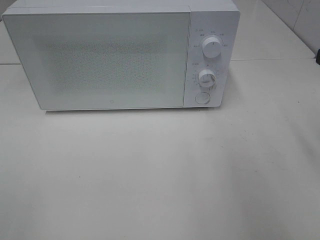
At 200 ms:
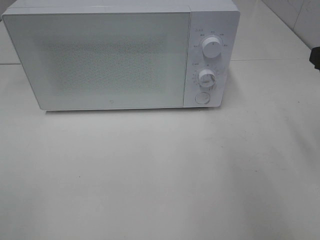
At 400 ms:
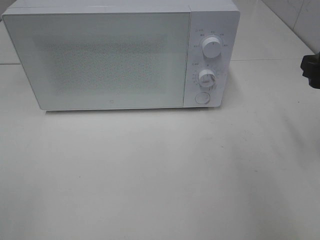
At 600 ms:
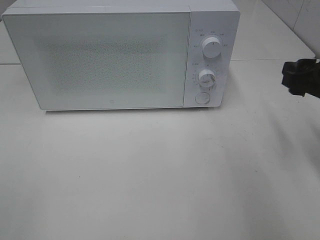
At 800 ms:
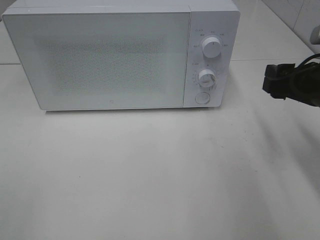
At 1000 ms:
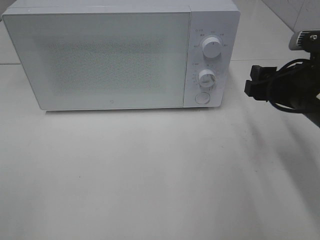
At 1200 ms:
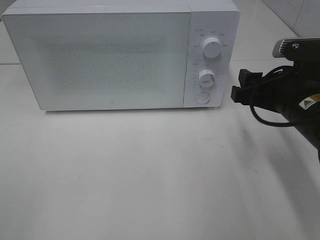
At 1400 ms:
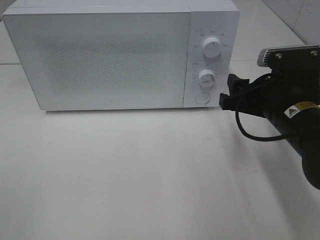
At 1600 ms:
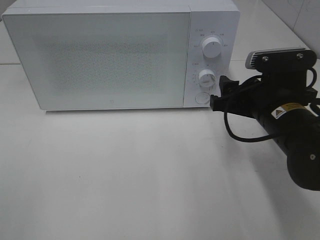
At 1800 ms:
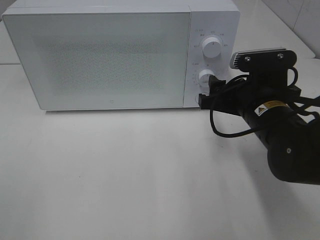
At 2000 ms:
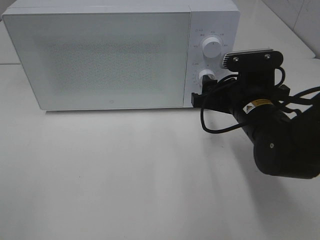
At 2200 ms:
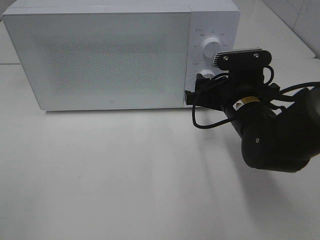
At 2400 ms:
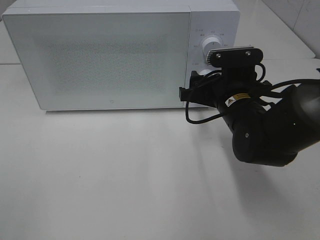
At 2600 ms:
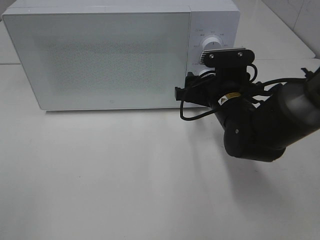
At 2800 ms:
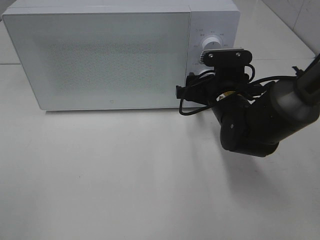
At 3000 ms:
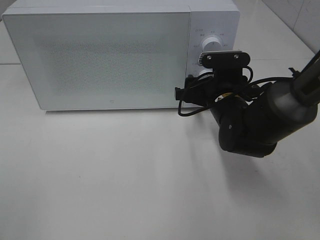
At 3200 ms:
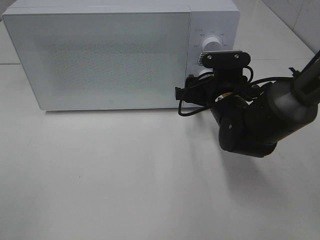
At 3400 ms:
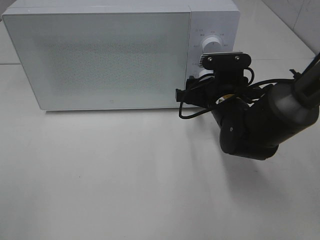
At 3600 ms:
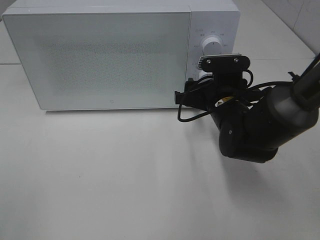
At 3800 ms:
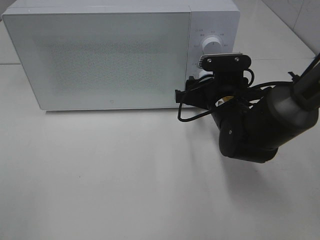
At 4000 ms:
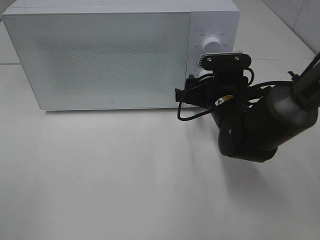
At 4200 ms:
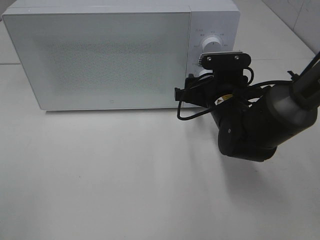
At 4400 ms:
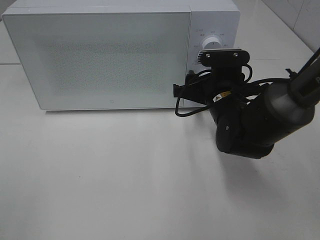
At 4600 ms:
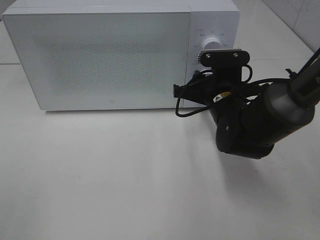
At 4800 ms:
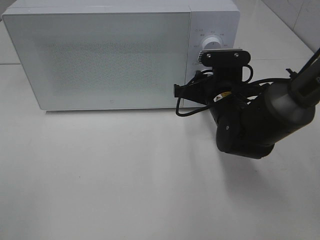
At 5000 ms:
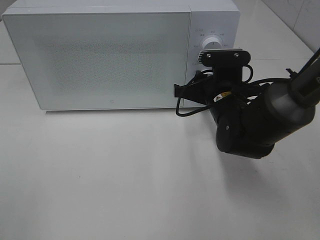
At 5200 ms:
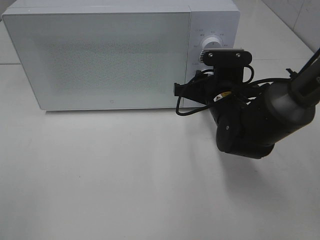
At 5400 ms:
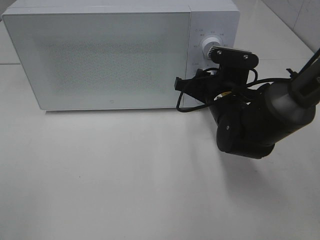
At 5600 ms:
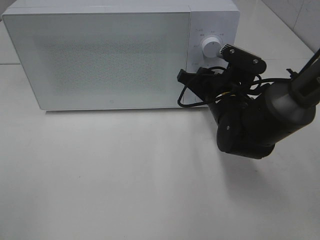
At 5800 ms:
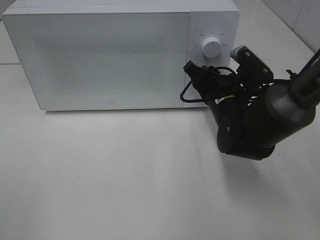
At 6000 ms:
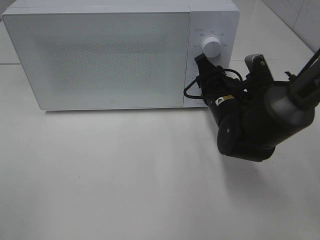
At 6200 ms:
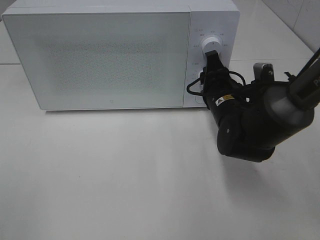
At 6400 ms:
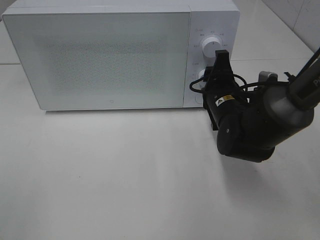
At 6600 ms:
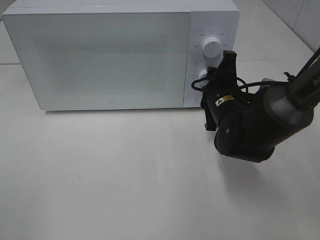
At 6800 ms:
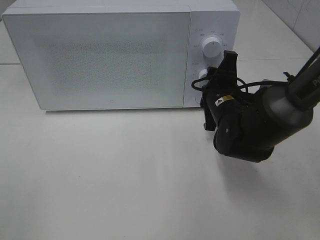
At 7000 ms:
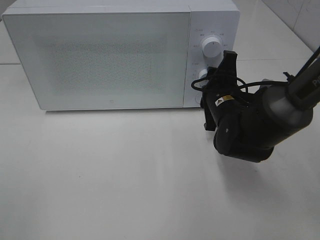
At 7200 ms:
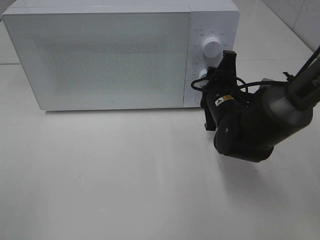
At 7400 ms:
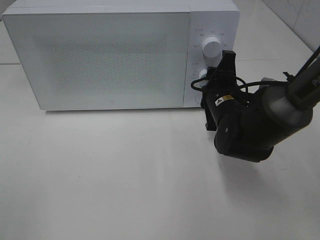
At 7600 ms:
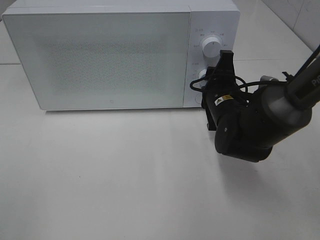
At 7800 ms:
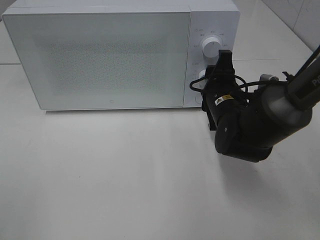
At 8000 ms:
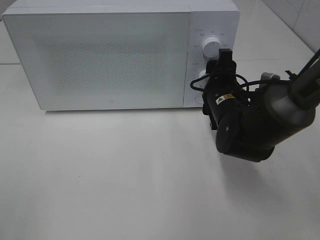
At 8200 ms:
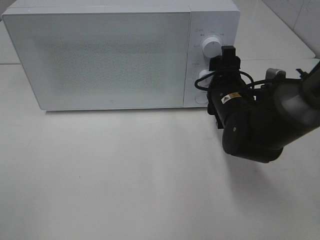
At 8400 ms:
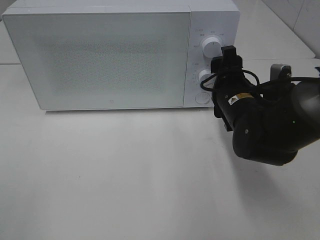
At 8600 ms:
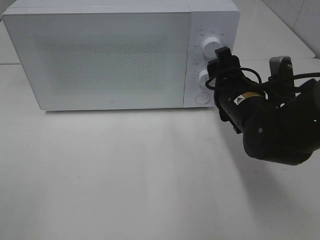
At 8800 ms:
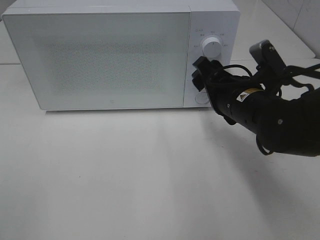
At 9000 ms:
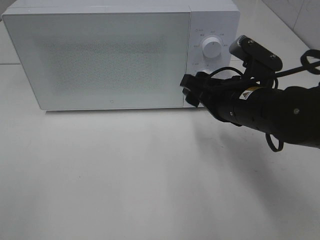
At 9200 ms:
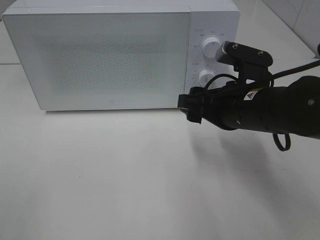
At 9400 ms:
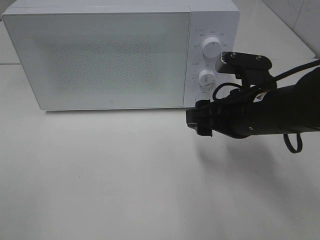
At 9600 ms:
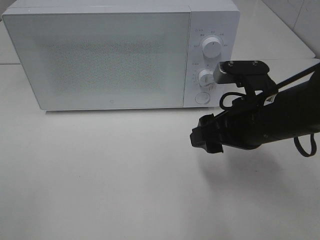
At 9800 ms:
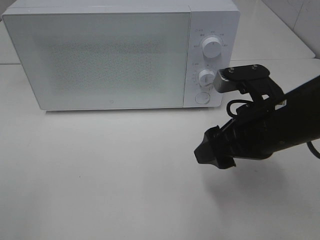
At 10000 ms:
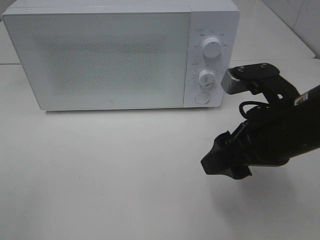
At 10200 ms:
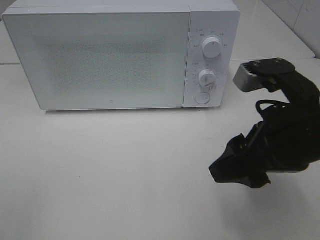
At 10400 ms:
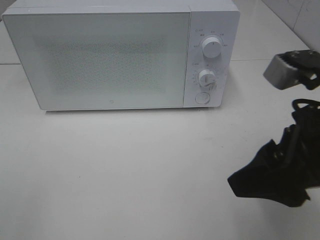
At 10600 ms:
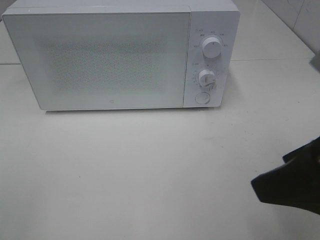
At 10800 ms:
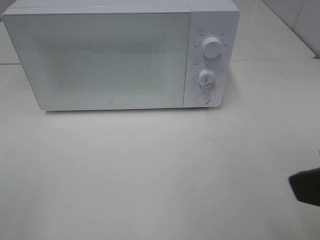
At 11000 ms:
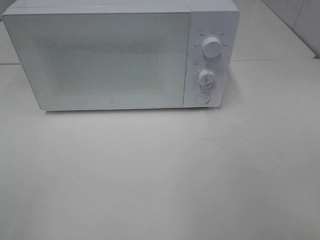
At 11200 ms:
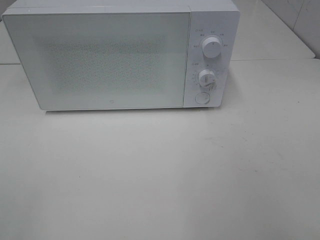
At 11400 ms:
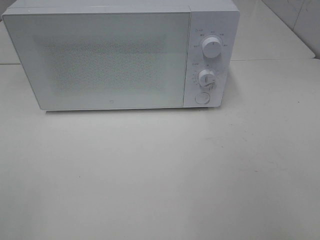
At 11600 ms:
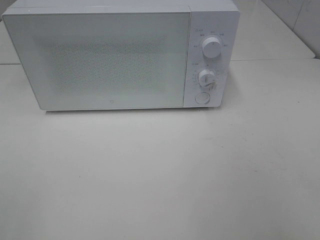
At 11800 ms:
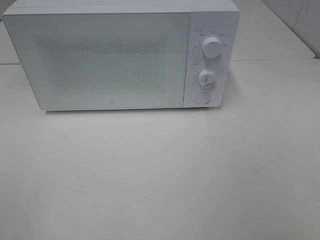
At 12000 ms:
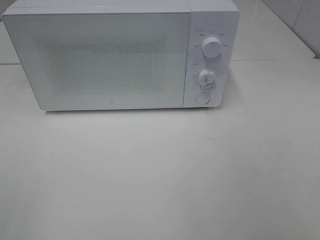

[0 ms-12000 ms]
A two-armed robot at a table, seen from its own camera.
Task of the whole recording: Heat Sandwich.
Step, 0 ms to 8800 ms: Right hand: twist timer button.
0 ms to 1600 ms: The right gripper moves to the left and downward, roughly 15 cm.
1600 ms to 3000 ms: The right gripper goes approximately 10 cm forward.
3000 ms to 4400 ms: Both grippers stay put.
7600 ms to 9000 ms: The right gripper shifts some 10 cm backward and upward, and opens.
9000 ms to 10400 ms: The right gripper heads backward and upward, covering approximately 15 cm.
10400 ms to 12000 ms: The right gripper goes approximately 20 cm backward and to the right.

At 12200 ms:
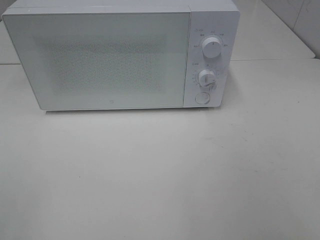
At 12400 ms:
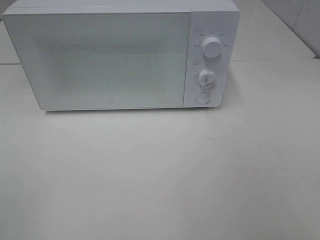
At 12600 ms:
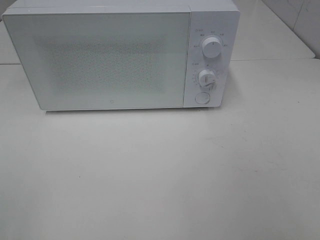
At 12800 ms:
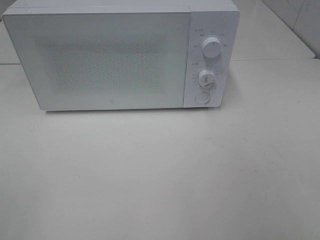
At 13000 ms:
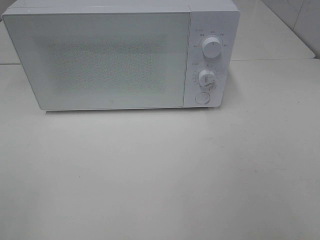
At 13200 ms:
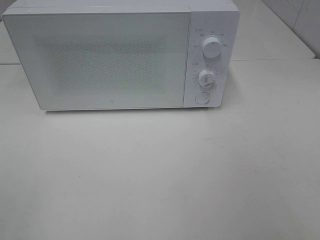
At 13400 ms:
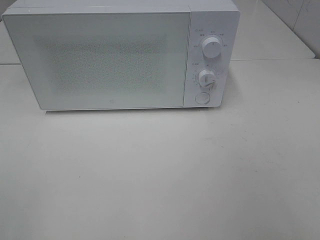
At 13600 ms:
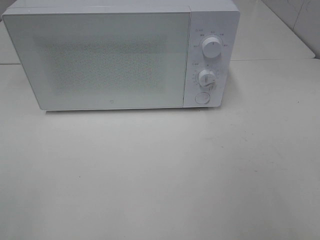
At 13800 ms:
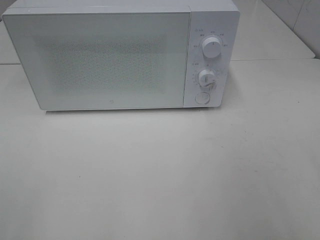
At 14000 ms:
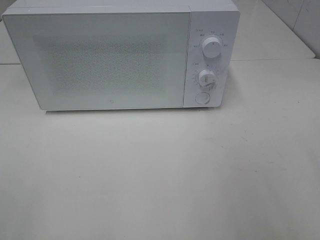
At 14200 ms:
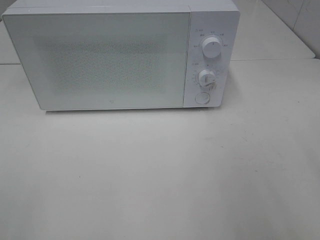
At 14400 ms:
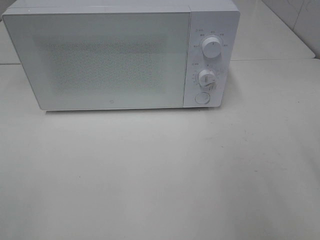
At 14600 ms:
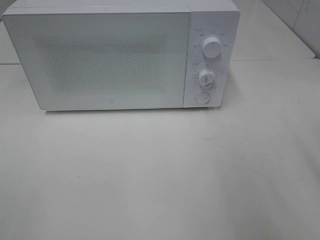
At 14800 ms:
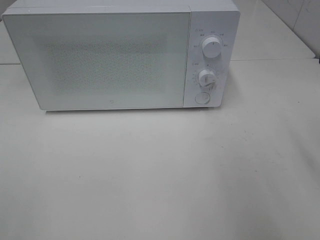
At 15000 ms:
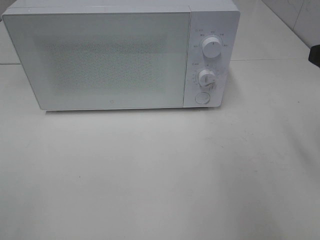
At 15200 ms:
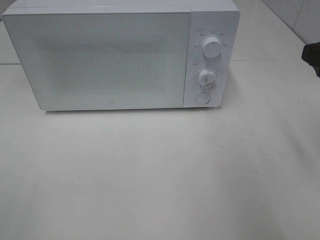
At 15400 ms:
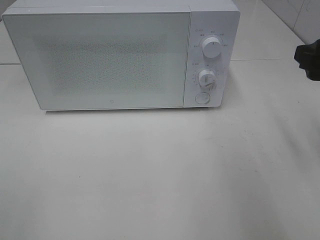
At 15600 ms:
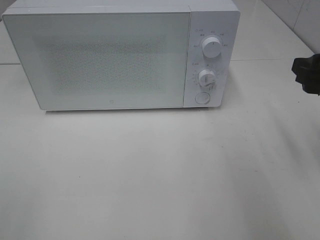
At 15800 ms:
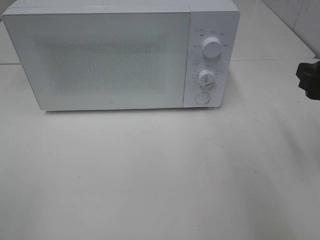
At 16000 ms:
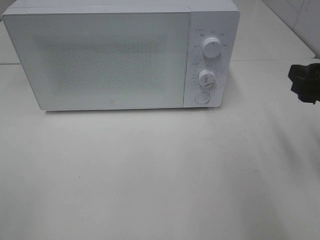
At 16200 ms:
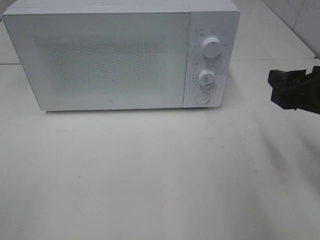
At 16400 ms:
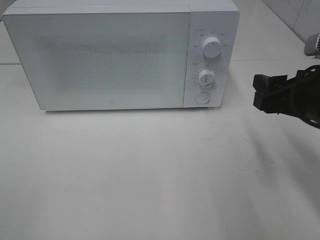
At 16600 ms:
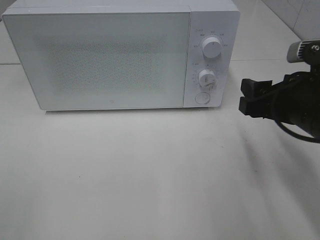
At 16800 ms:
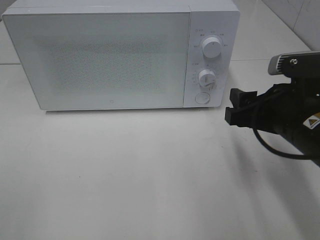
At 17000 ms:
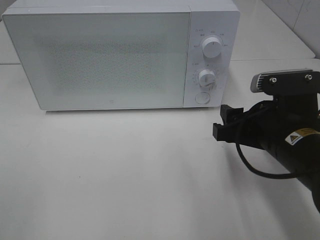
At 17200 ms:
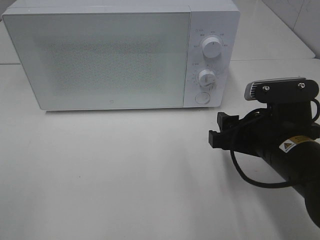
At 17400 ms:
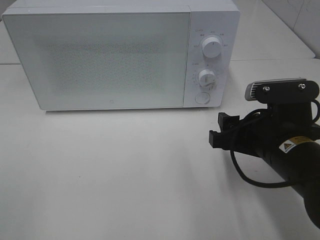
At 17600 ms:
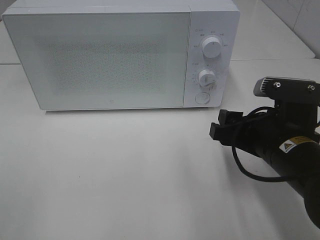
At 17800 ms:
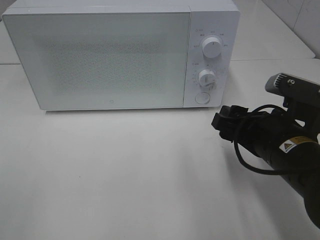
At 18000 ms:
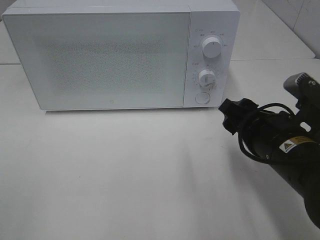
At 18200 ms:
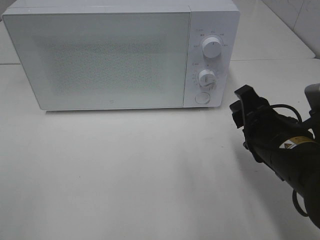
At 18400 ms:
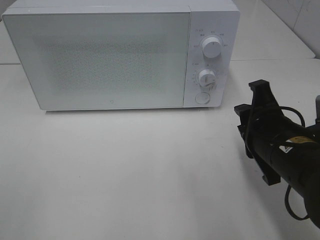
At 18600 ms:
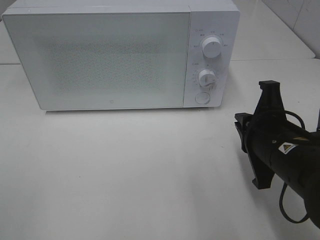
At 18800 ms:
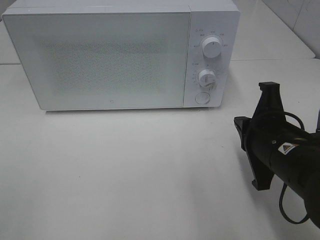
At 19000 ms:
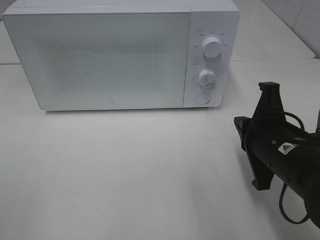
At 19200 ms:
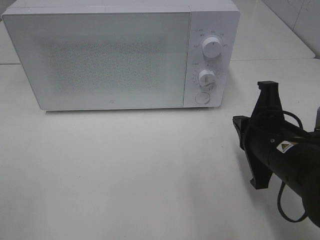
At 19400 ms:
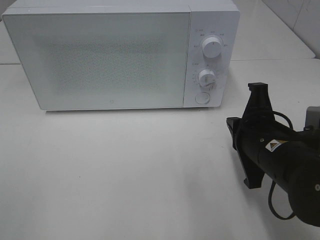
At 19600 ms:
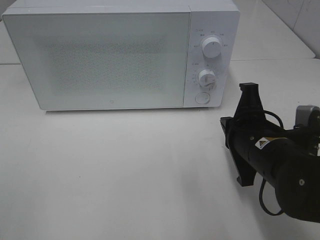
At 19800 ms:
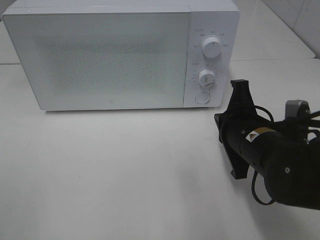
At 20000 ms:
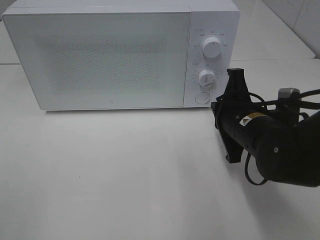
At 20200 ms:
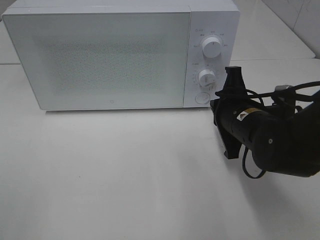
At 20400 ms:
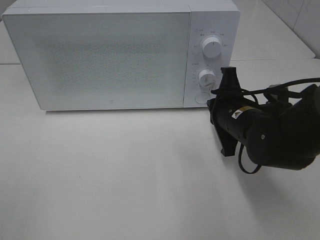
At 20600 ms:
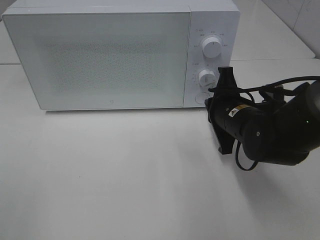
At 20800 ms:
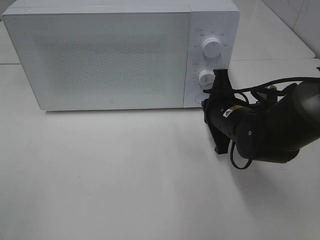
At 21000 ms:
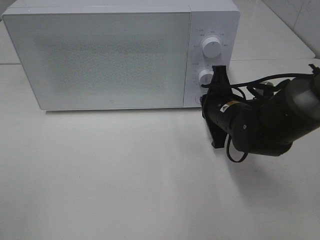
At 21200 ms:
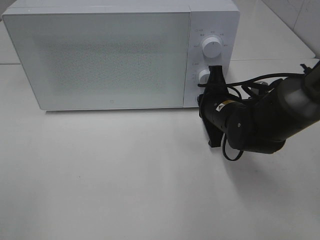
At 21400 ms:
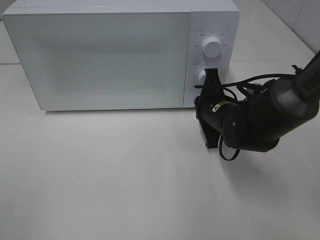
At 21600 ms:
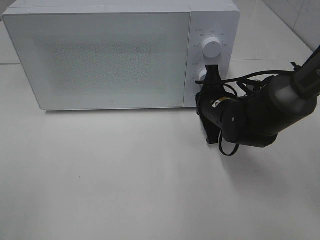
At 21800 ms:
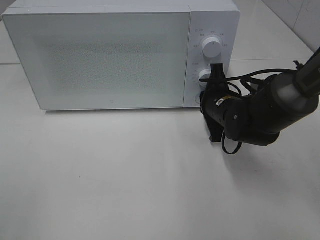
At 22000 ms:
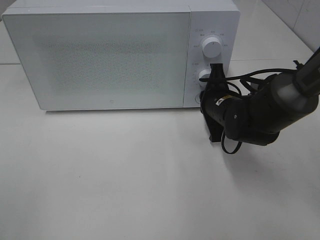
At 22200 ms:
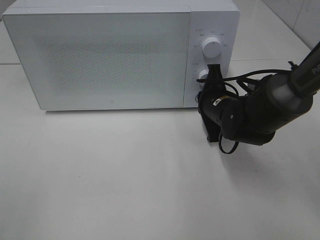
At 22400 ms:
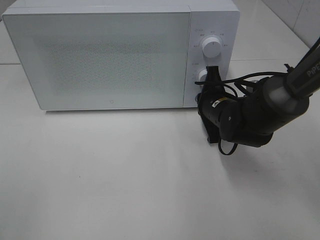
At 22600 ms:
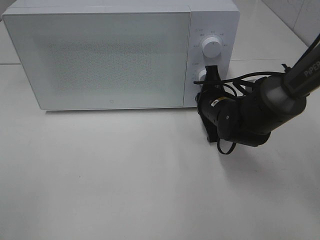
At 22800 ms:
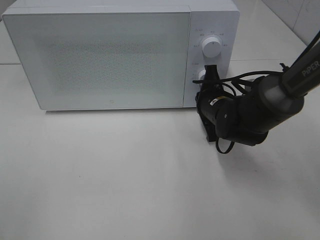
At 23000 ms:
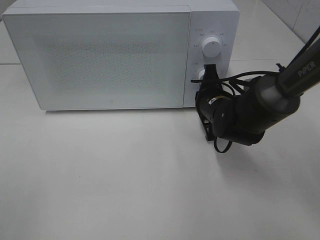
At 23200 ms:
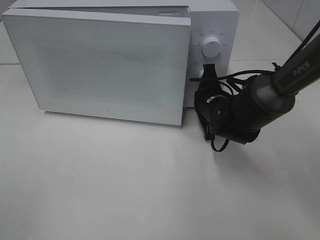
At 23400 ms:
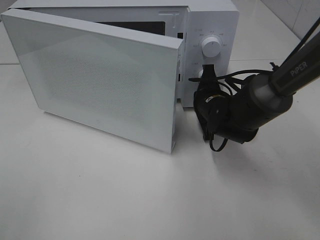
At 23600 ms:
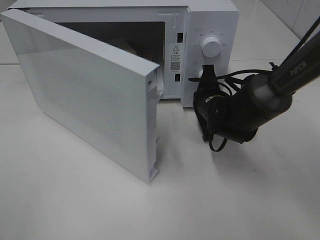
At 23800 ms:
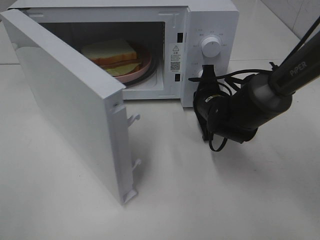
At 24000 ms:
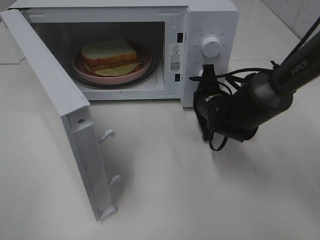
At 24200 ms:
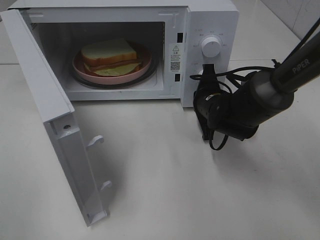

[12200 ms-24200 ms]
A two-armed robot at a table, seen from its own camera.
Task of the whole recording: Heat Sandwich.
15200 ms to 16600 ms: The right gripper travels downward and to the left by about 10 cm.
16600 ms to 18200 ms: The right gripper ends up approximately 5 cm from where it was.
18200 ms to 19800 ms: The right gripper closes up.
19800 ms to 21200 ms: The right gripper is displaced forward by approximately 10 cm.
21200 ms to 22600 ms: The grippers move only a little.
